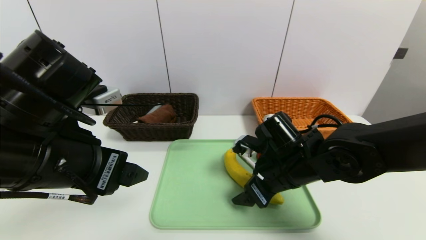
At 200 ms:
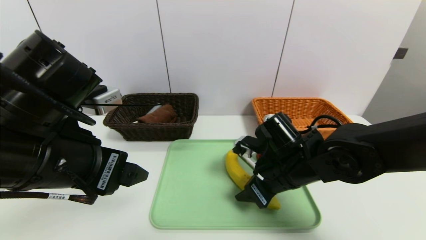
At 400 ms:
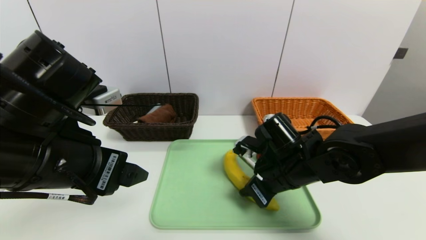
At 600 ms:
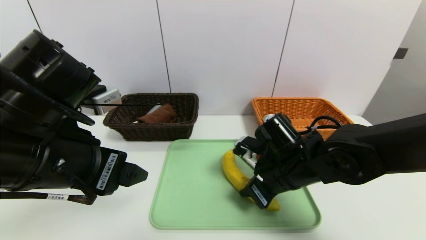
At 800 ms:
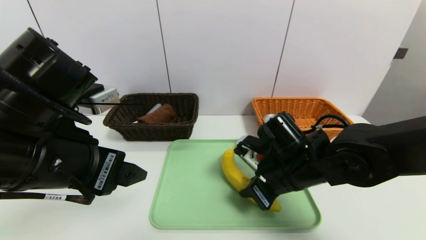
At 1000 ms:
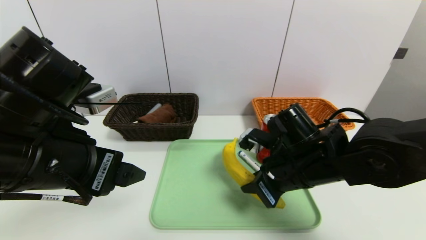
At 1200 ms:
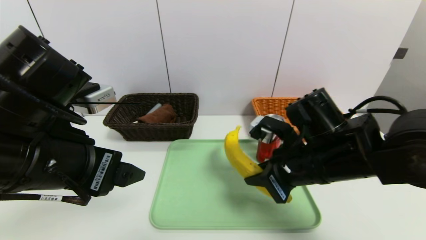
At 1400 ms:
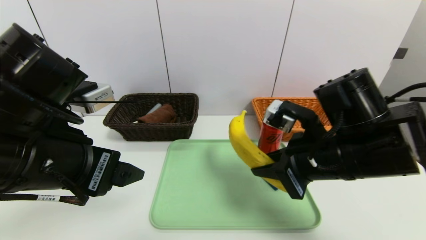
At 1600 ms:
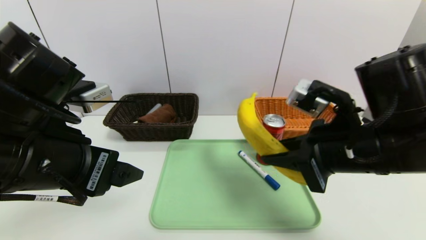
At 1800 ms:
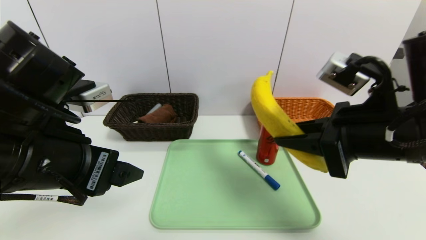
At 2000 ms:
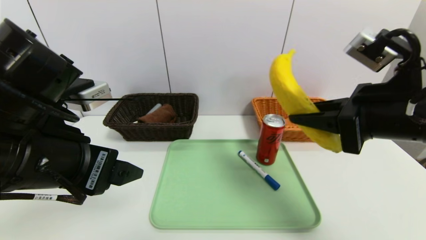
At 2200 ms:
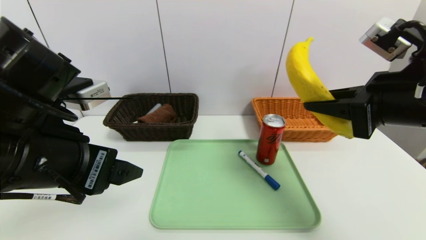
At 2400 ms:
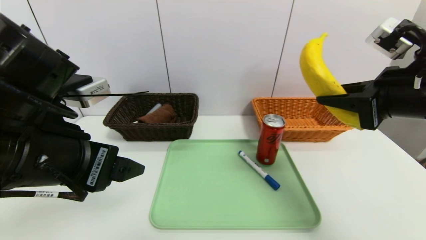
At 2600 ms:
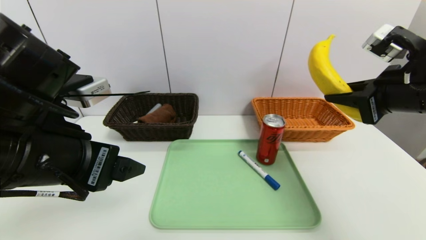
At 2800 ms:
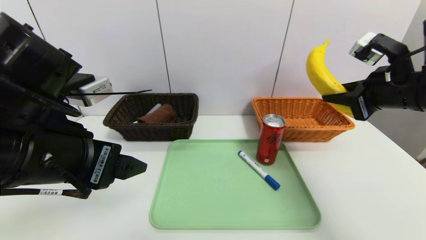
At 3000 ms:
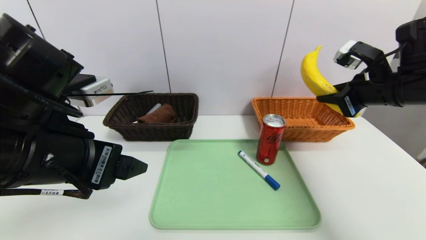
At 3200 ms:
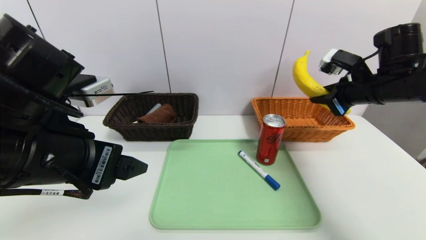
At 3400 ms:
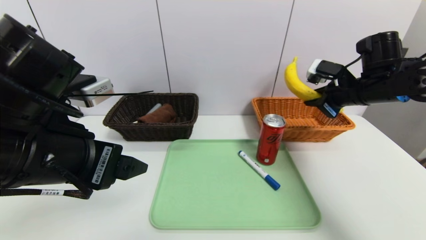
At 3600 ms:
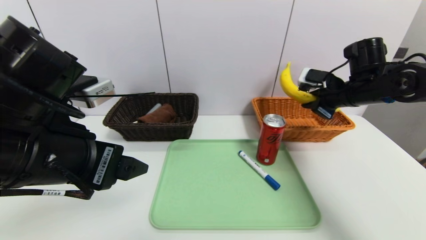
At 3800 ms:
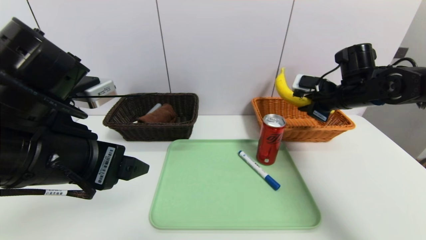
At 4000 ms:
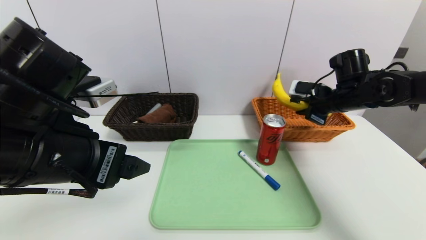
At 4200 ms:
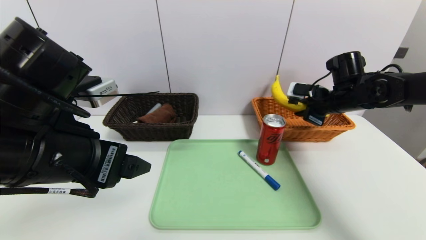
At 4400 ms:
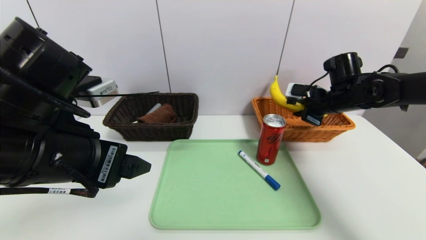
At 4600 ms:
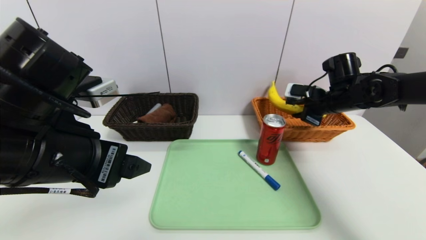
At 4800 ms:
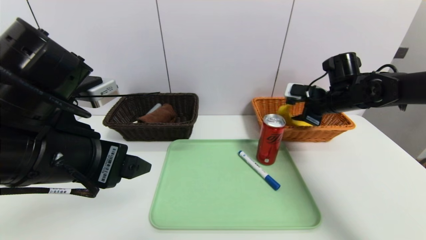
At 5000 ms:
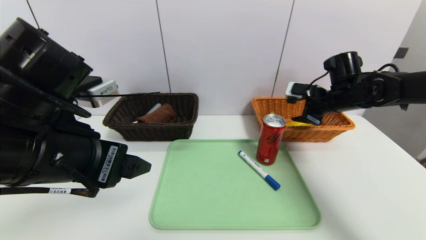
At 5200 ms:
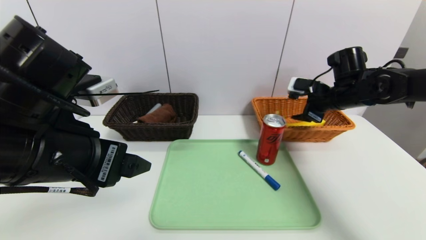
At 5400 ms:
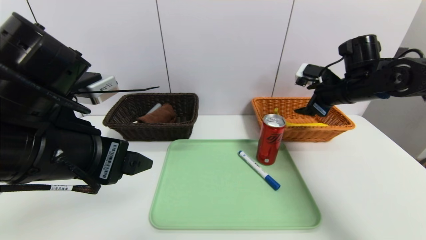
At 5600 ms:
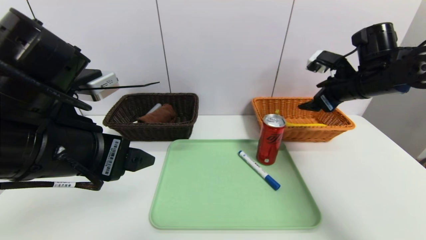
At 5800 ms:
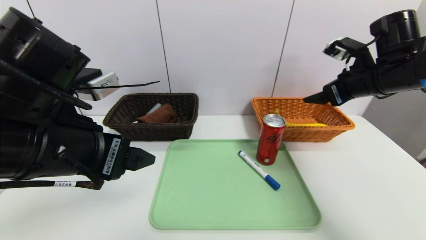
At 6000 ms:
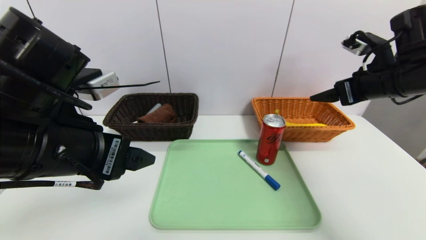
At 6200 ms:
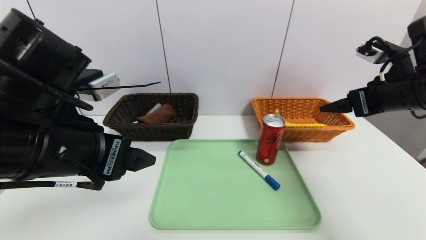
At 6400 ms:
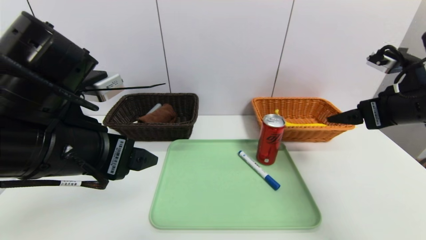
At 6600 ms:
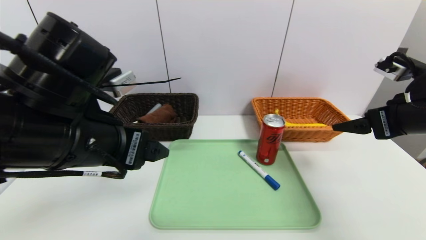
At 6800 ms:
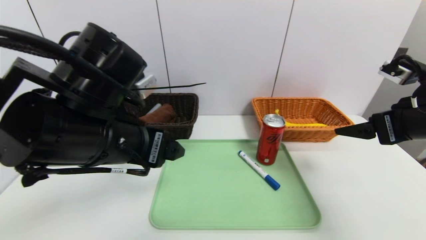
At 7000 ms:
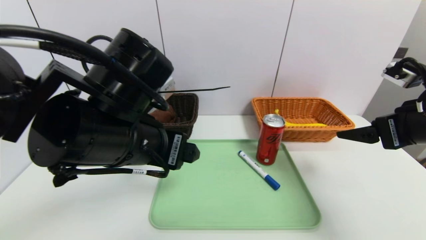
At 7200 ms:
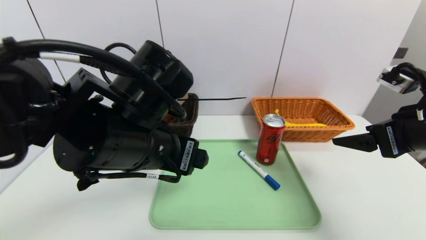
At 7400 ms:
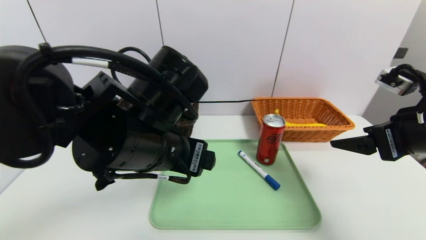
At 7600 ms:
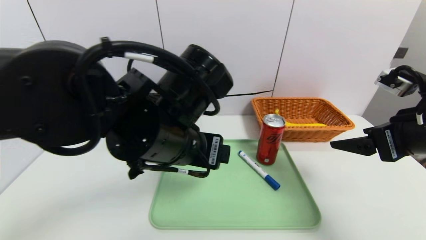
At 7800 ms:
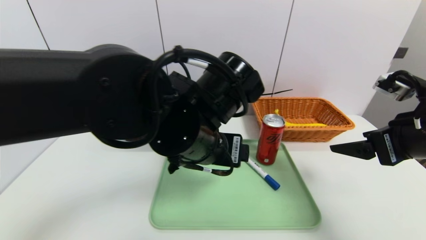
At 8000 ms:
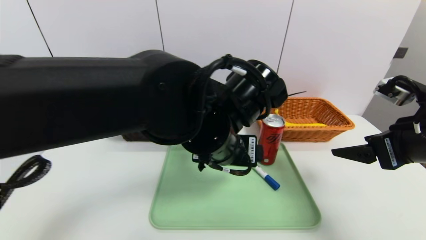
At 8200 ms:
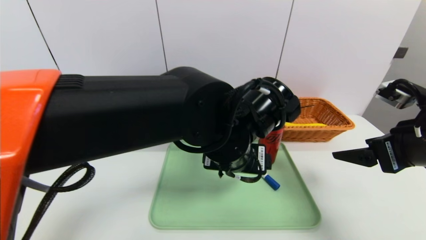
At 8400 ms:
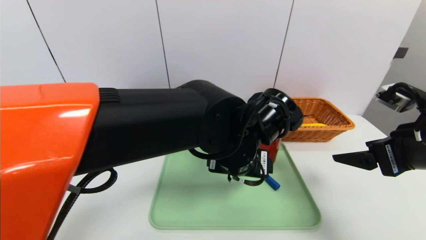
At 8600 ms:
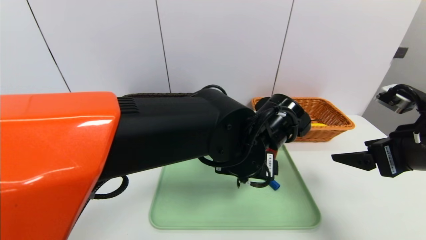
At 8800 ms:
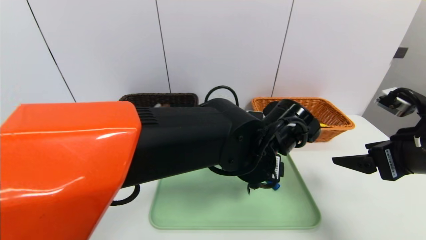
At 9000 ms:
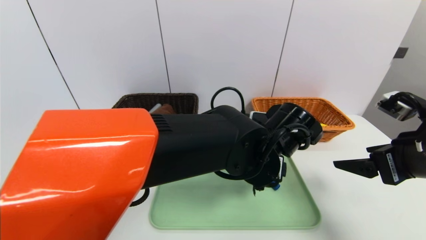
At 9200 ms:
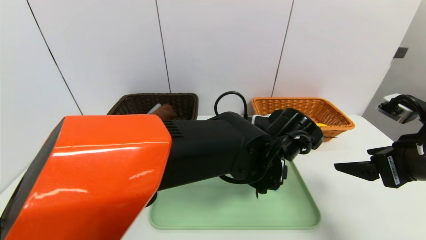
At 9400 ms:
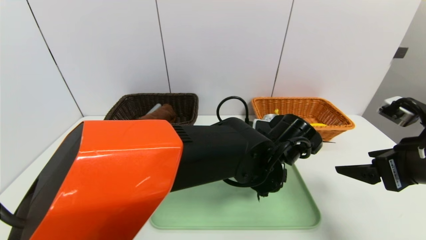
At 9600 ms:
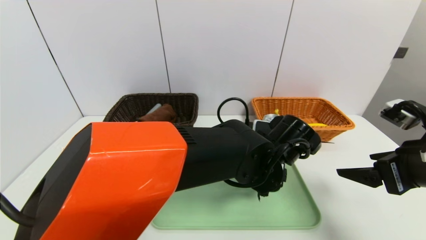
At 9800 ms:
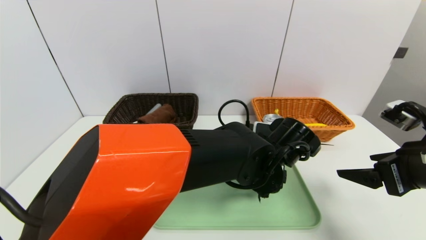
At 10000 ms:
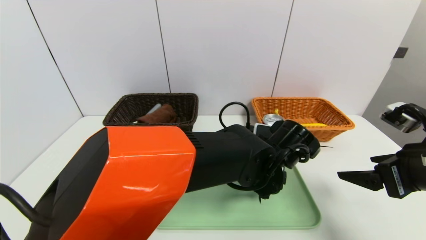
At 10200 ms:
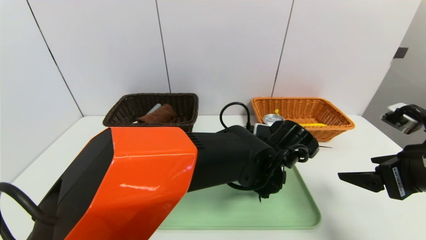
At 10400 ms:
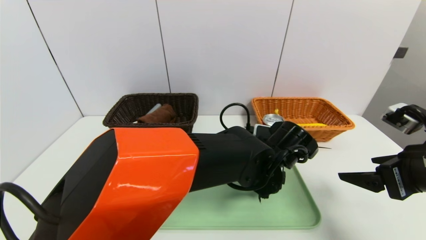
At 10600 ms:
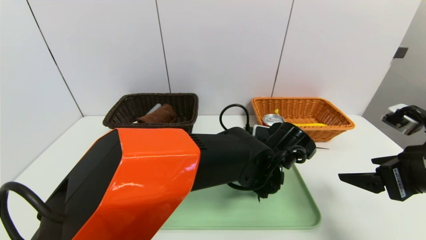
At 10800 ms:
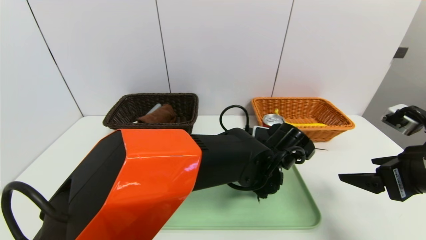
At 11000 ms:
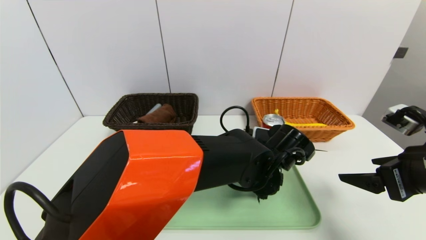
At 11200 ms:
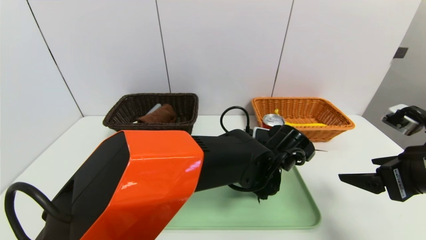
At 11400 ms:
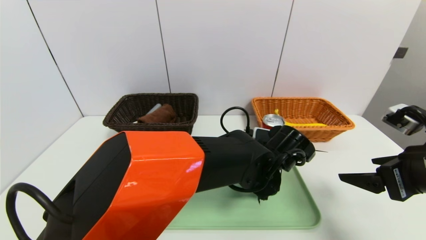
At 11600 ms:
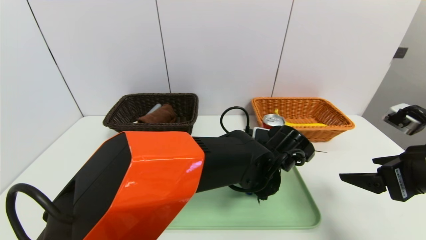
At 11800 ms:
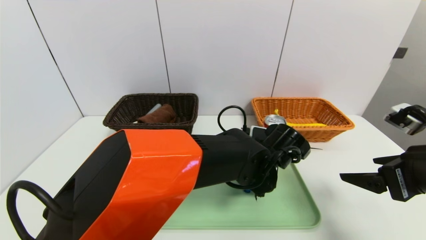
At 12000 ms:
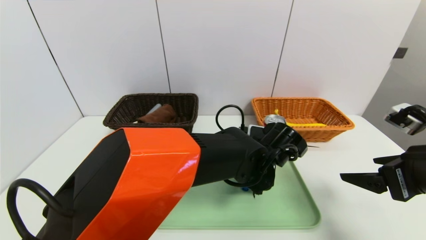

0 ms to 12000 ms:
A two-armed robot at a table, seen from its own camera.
Task of the whole recording: place the food in the right basket with the right gripper, and place the non food items in the left basket with the left gripper.
Step, 0 ms to 5400 ms: Grasp the banana and put it in the right basket.
0 ms to 1600 ms: The right gripper is displaced upward, backward and to the right by approximately 15 cm, and closes.
1600 ms to 3000 ms: The right gripper is displaced forward and to the right by some 15 cm.
3000 ms to 4400 ms: The right gripper shifts approximately 10 cm forward and downward.
4400 ms to 6000 ms: The right gripper travels backward and upward by some 15 cm, and opens.
6000 ms to 7600 ms: The right gripper is displaced backward by about 10 cm. Meanwhile the left gripper goes approximately 10 cm to the right.
7600 ms to 9000 ms: The left gripper moves to the right and downward, roughly 15 cm.
10400 ms to 12000 ms: The left gripper closes its fingers.

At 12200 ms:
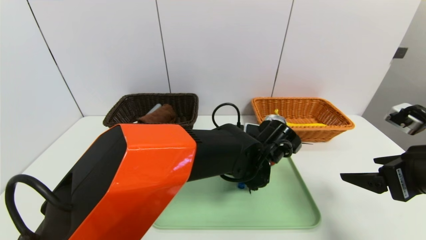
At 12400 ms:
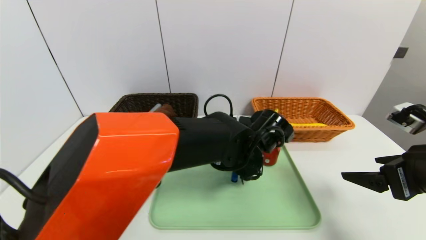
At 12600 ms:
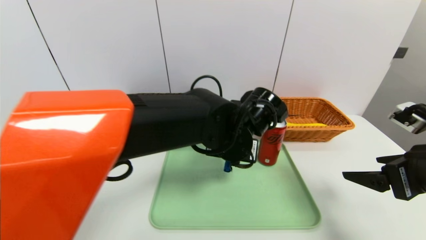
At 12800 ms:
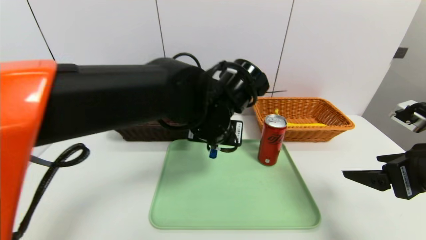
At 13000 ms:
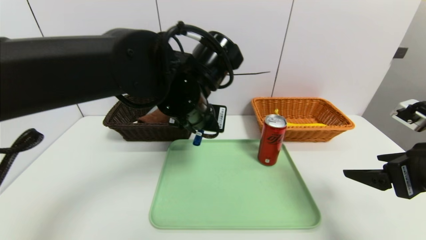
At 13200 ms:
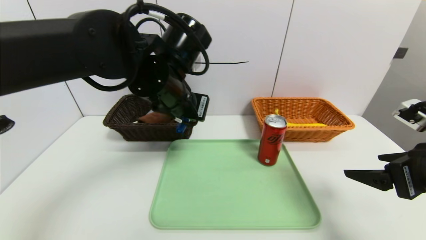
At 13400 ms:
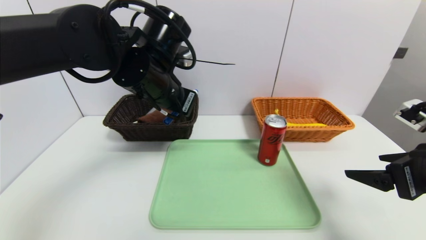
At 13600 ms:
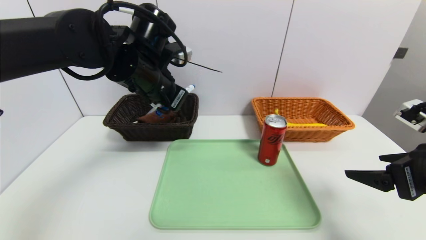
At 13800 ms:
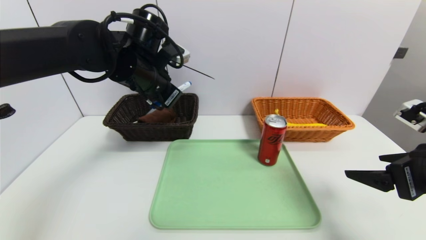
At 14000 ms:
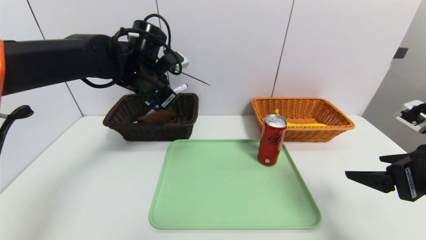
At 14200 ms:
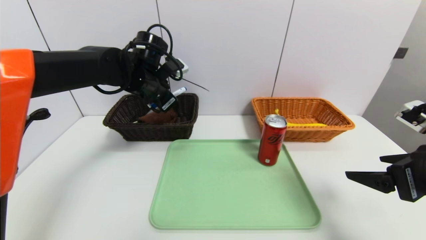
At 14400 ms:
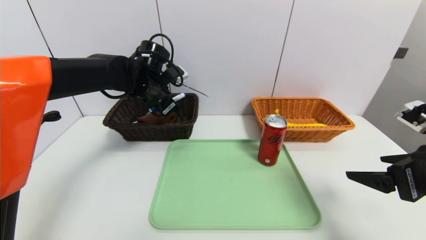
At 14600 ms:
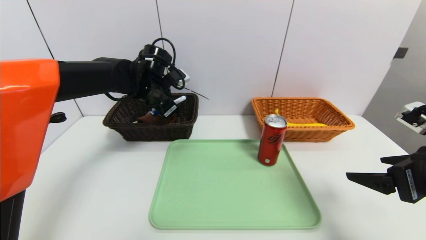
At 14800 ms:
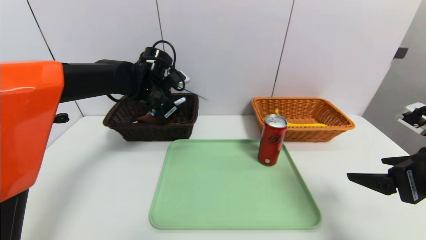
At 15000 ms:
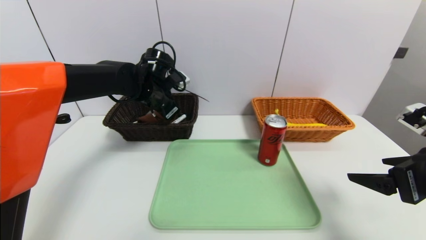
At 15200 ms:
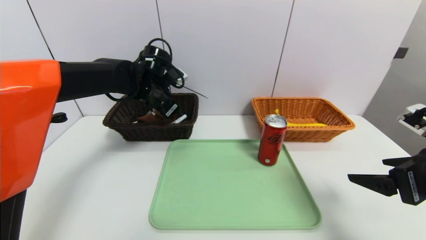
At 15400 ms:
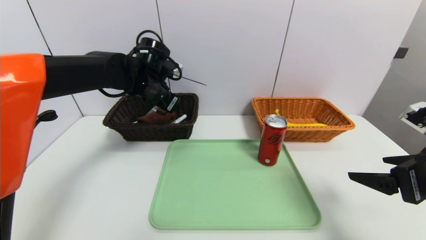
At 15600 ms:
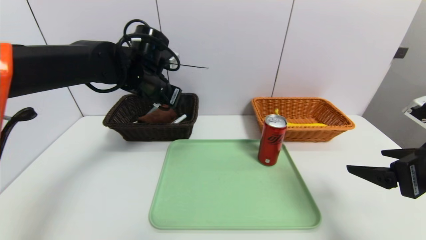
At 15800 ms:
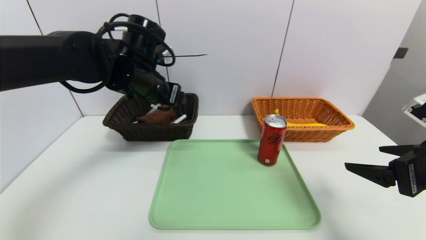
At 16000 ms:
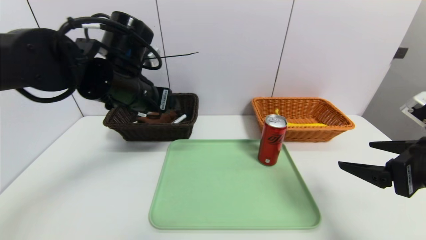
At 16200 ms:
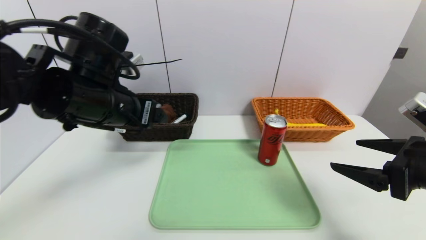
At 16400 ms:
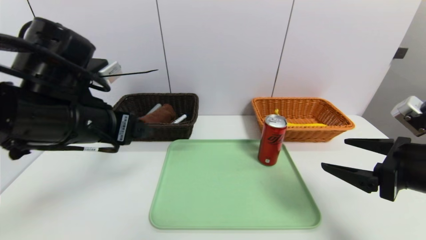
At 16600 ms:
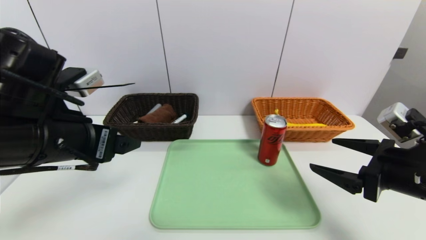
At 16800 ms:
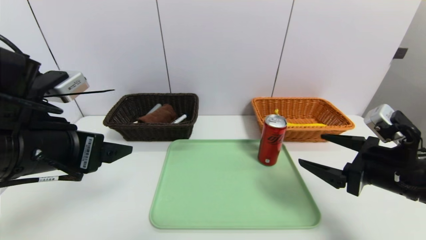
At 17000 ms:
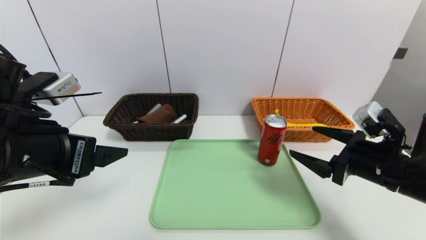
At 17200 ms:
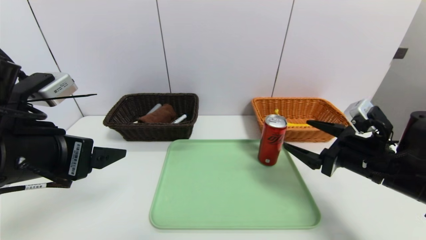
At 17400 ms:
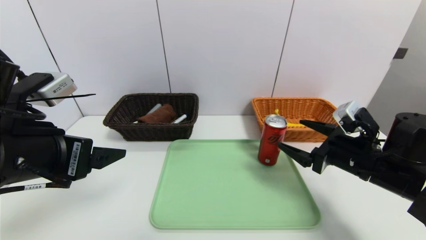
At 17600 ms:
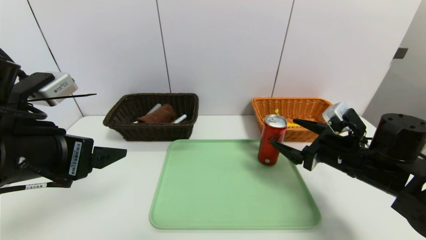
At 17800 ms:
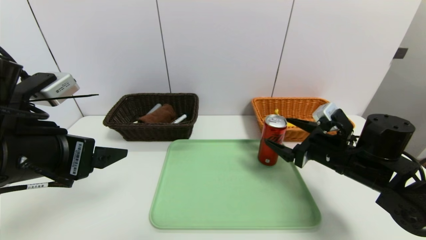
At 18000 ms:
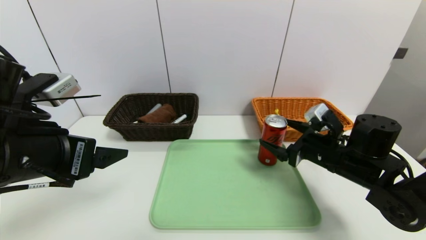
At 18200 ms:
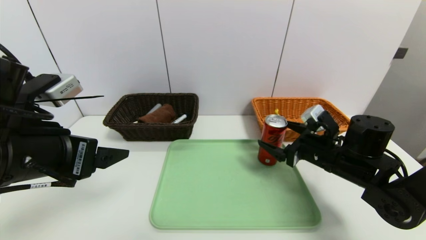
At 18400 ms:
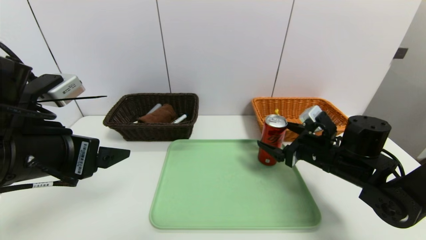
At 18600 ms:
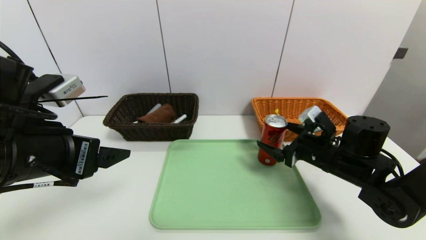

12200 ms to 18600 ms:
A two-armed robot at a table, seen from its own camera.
Task of the whole recording: place the food in the right basket with the right gripper, and place the non food items in the left basket with the left gripper.
Step, 12200 ms to 15800 ms: Grasp the blue marker and put it in the left basket.
12200 ms to 13800 ms: The left gripper moves to the left and upward, about 25 cm.
13800 ms to 15400 ms: The left gripper opens up.
15400 ms to 17000 ms: The right gripper moves forward and downward, some 10 cm; the left gripper travels backward by roughly 25 cm.
17000 ms to 18600 ms: The right gripper is displaced forward by roughly 10 cm.
